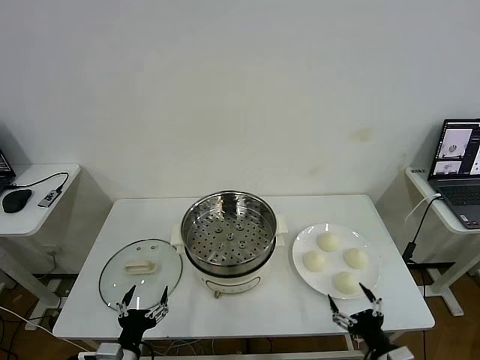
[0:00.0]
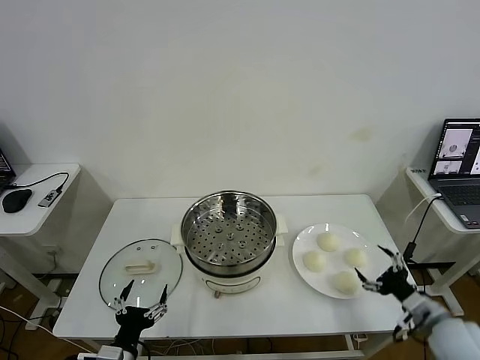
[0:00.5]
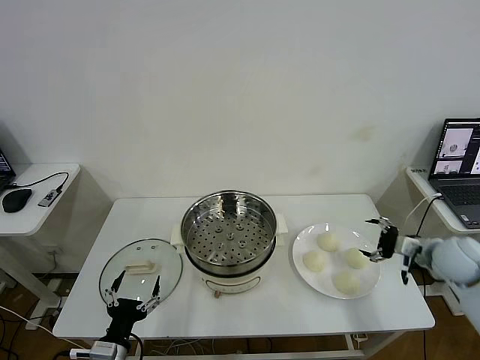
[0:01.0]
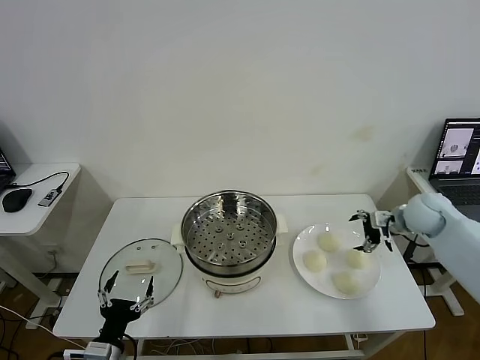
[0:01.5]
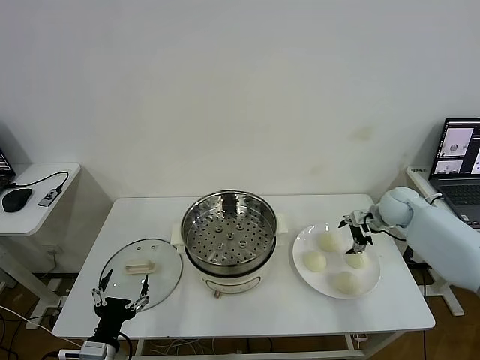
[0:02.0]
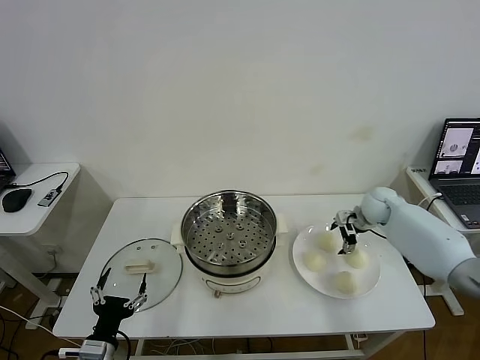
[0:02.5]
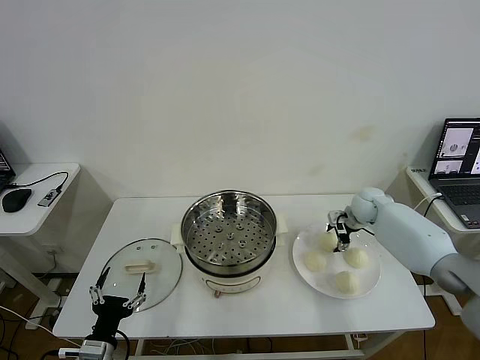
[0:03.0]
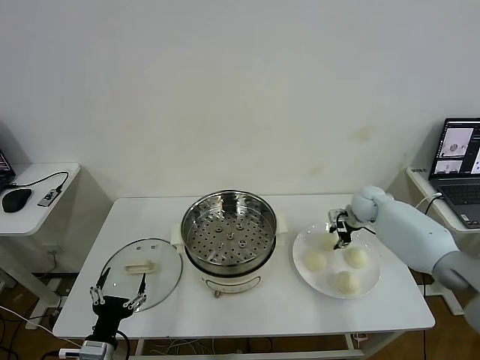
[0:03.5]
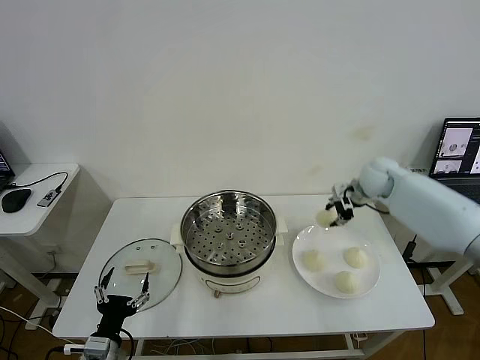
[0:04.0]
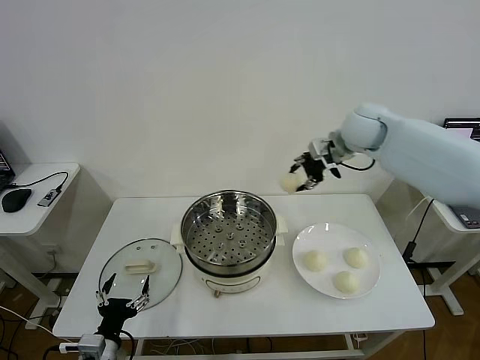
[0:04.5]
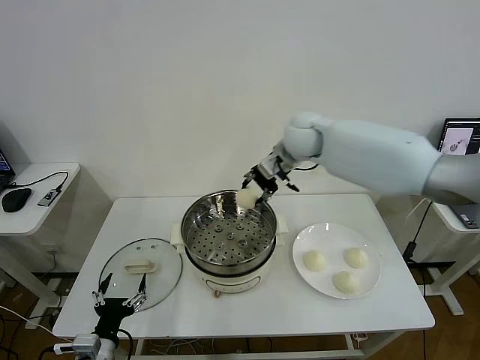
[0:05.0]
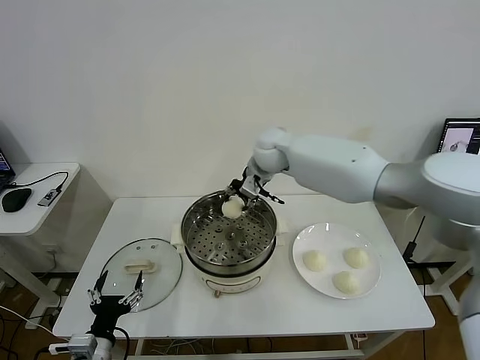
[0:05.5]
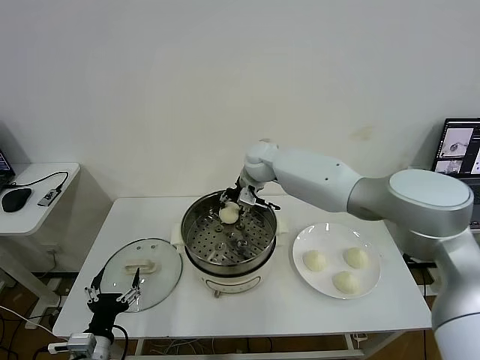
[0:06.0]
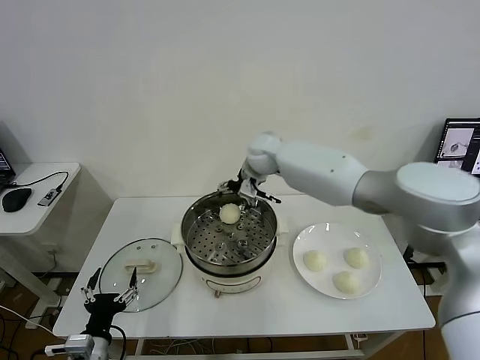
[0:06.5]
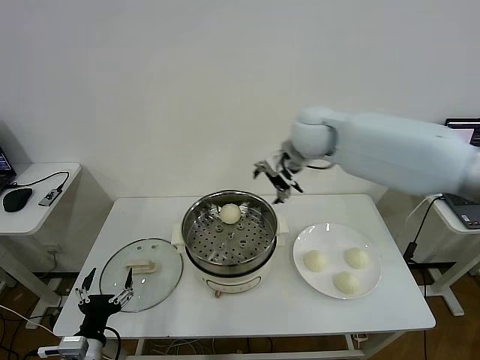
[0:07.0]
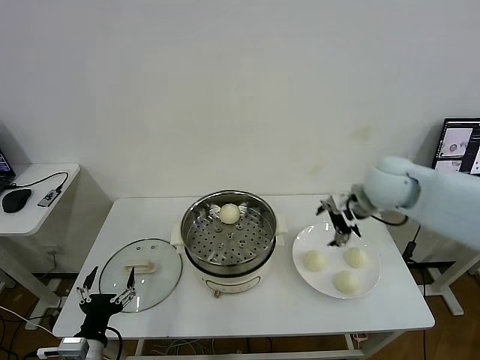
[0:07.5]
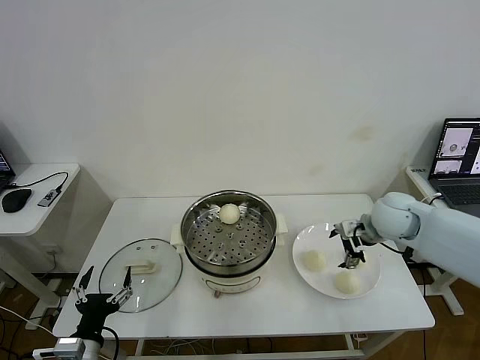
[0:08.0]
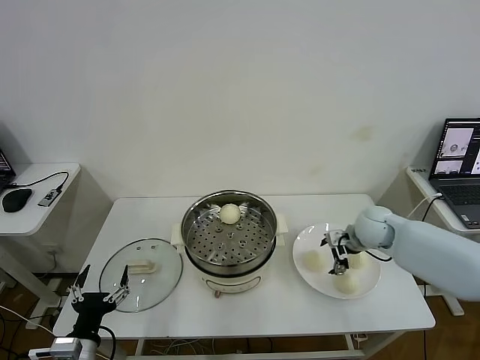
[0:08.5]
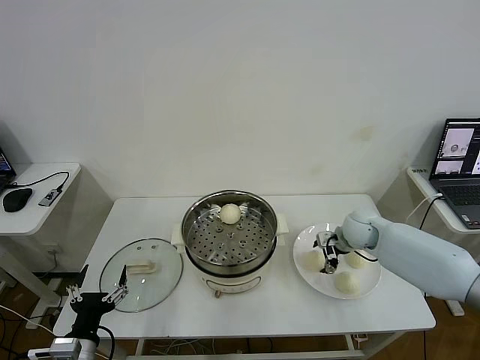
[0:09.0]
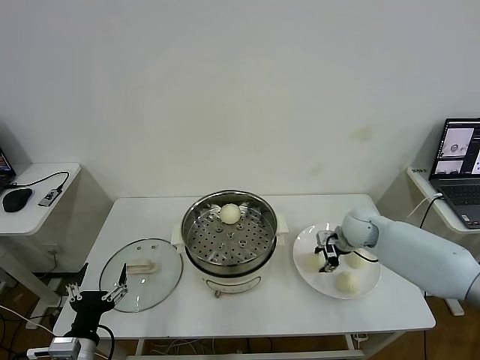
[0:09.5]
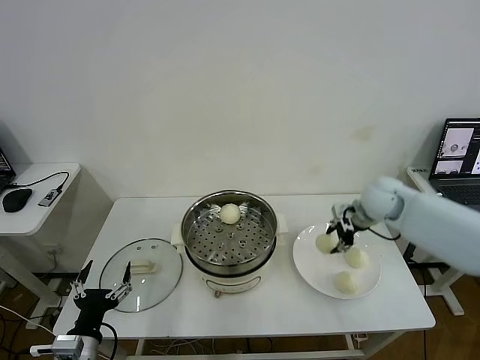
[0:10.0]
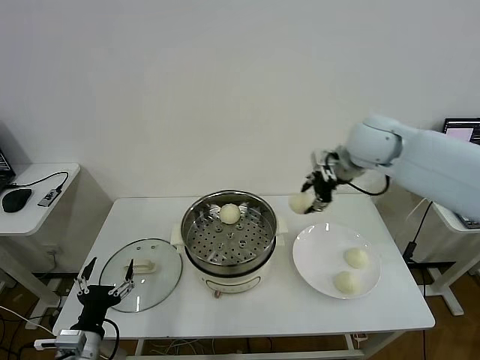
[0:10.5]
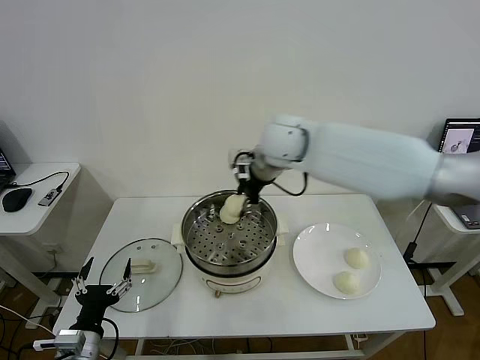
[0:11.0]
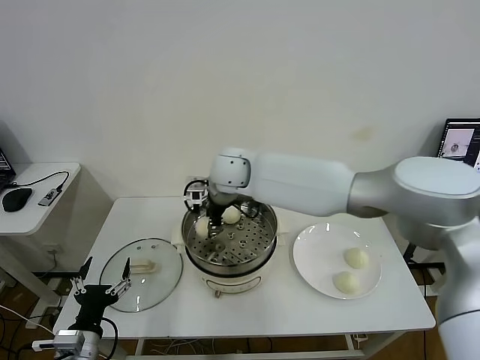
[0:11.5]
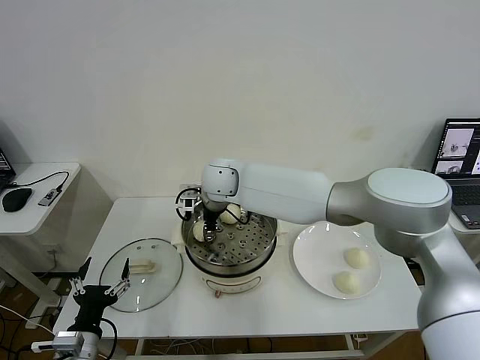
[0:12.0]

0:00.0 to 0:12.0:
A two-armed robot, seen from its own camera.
Task of the whole recording: take steamed baozi put them in steamer then cover it.
Step, 0:00.0 to 0:03.5: Grasp the baozi in the plate with right gripper.
Step, 0:04.0 to 0:06.0: Place the baozi on the steamer with right gripper.
Step, 0:06.5 to 0:09.5: Grasp the baozi in the plate with right gripper.
0:02.0 to 0:04.0: The right gripper shifts about 10 cm upward and to the left, and closes its fingers.
0:04.0 to 0:06.0: The right gripper goes roughly 30 cm to the left.
0:06.0 to 0:08.0: The right gripper goes about 30 cm to the right and backward, and opens its fingers.
0:08.0 to 0:10.0: The right gripper shifts roughly 5 cm forward, travels downward and back again, roughly 10 cm each way, and closes.
0:10.0 to 0:12.0: The right gripper moves to the left, about 35 cm.

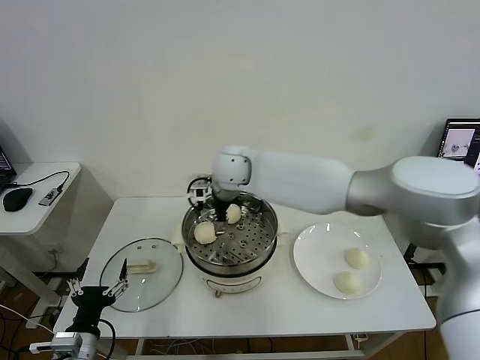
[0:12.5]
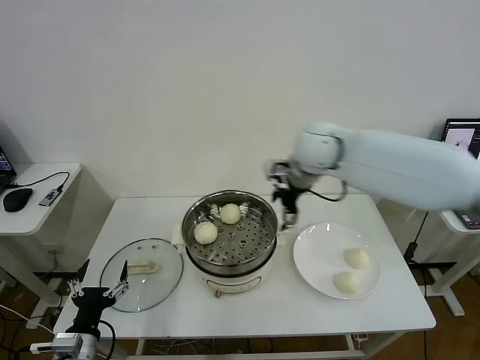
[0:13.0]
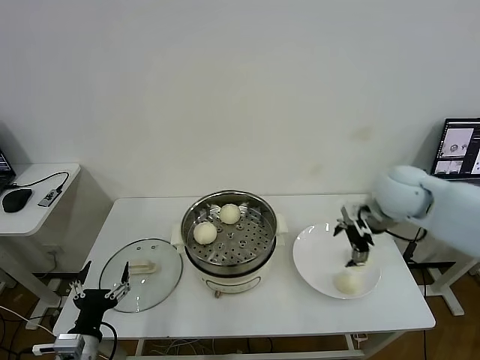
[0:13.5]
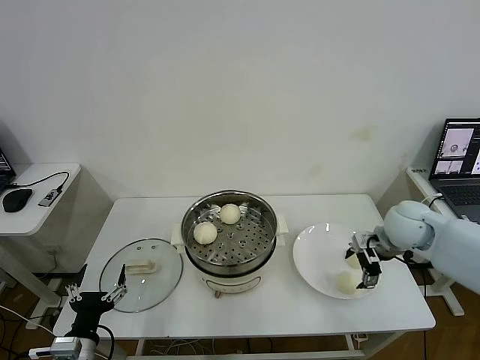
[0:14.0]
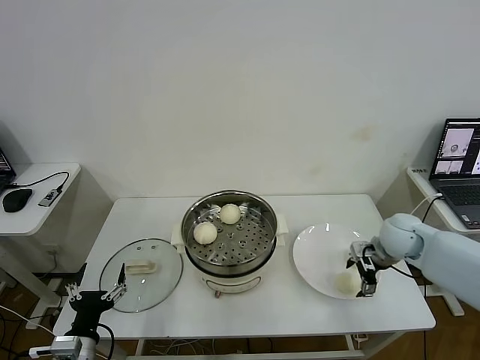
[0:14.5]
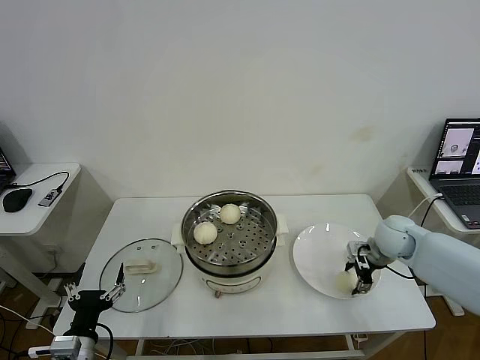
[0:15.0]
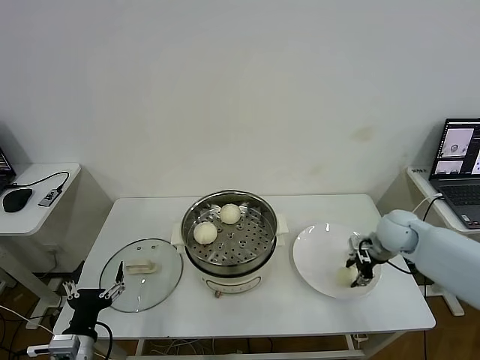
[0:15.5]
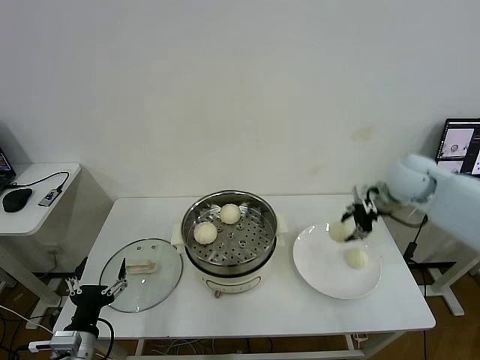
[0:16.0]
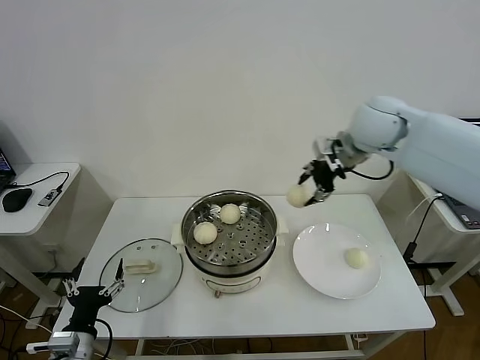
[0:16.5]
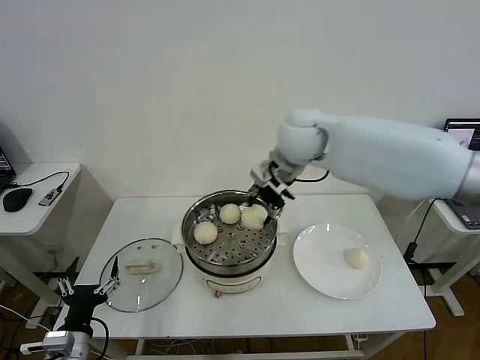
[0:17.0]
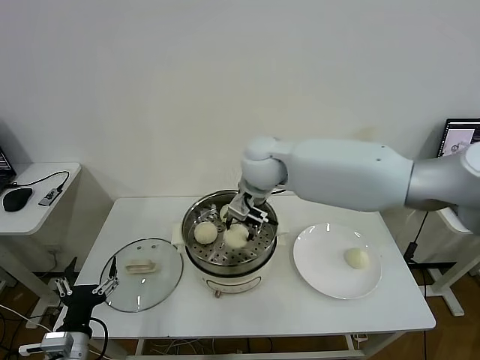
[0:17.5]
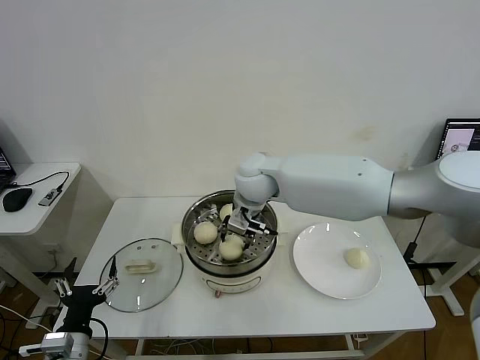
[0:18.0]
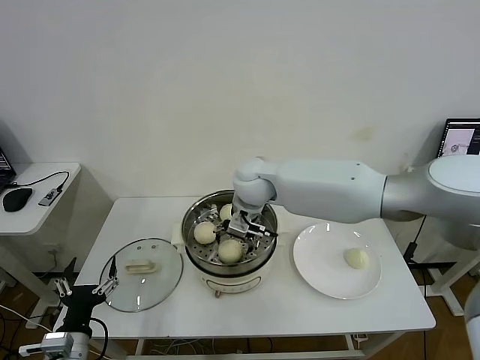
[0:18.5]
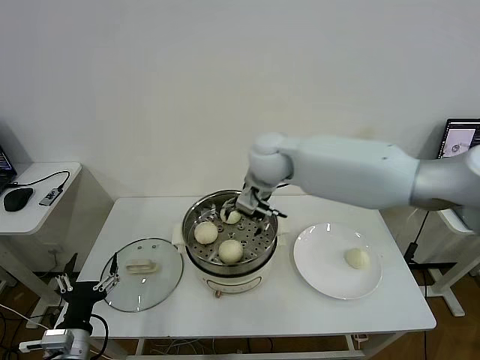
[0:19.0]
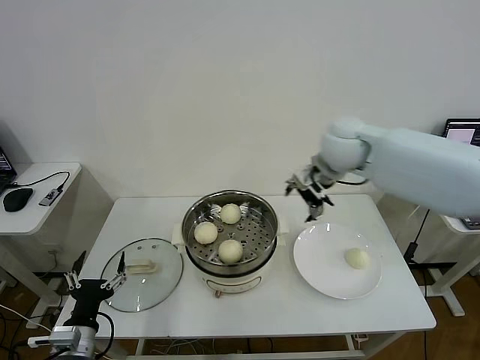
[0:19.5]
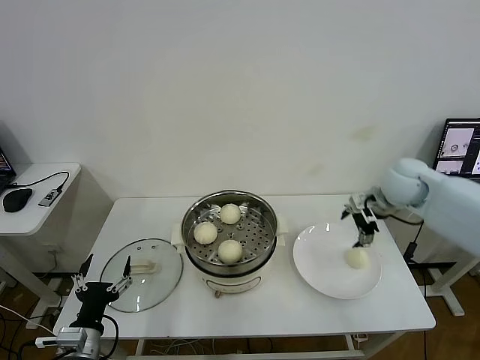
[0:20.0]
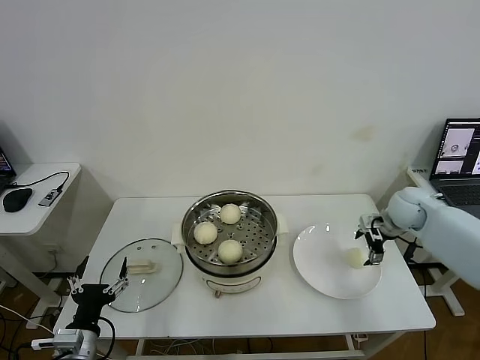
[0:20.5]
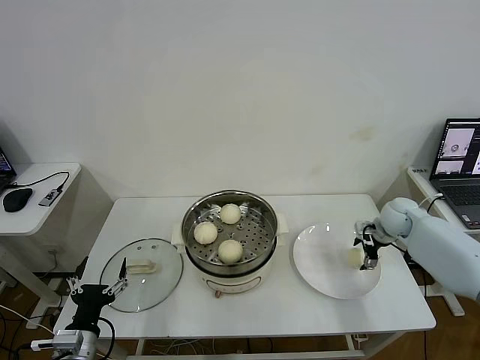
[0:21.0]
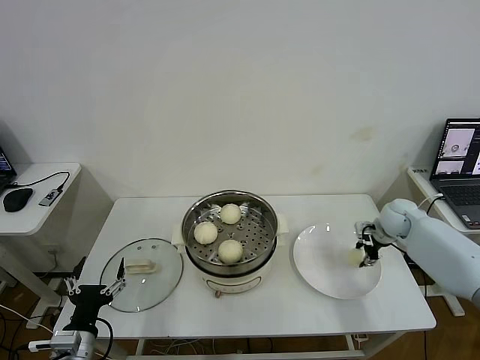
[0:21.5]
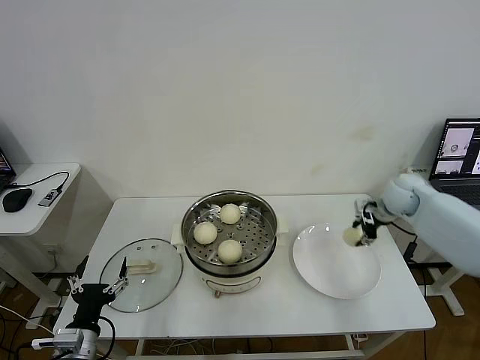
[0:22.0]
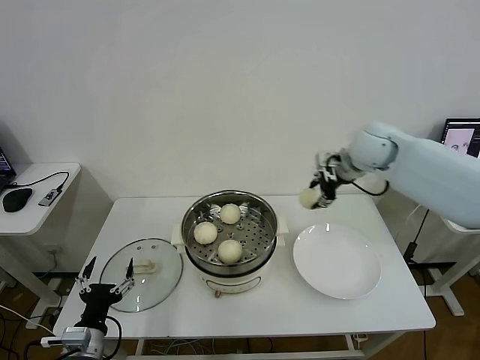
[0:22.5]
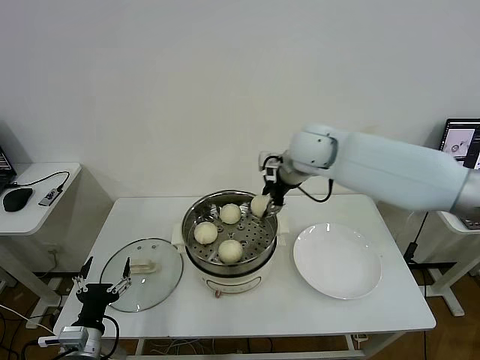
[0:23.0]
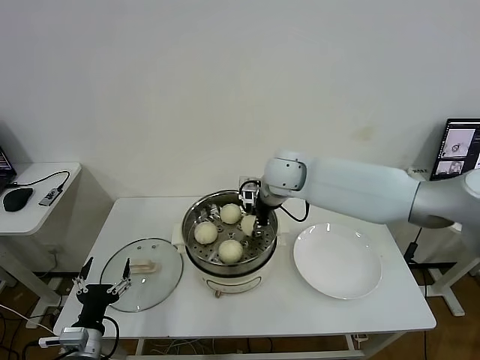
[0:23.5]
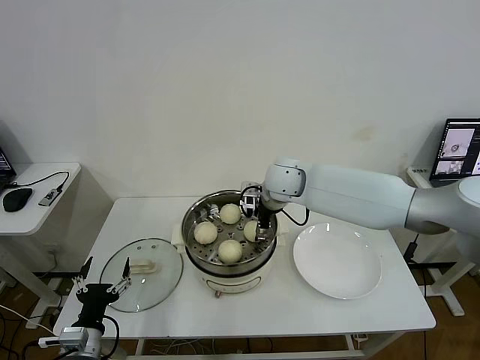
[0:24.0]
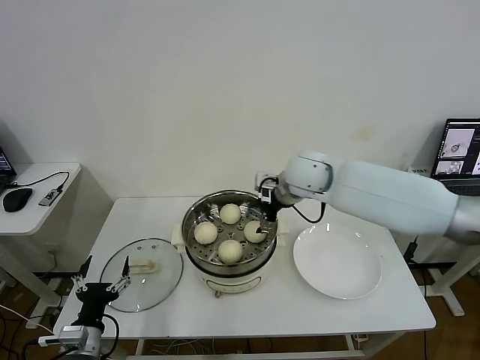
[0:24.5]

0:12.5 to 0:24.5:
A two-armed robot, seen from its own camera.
Task of the whole recording: take steamed baozi put them in steamer then cover it.
Step, 0:12.5 to 0:15.0: Grasp the baozi in the plate with right gripper.
Step, 0:15.5 to 0:18.5: Place the baozi on the steamer with right gripper.
Step, 0:19.0 to 0:21.5: Grasp the baozi in the plate with right gripper.
Step, 0:22.0 to 0:24.0: Place the baozi on the steamer with right gripper.
0:12.5 to 0:14.5: The right gripper is displaced to the right by about 40 cm.
0:14.5 to 0:16.5: The right gripper travels upward and to the left by approximately 25 cm, and closes its fingers.
0:16.5 to 0:18.5: The right gripper moves to the left and downward, about 25 cm, and opens up.
0:18.5 to 0:20.5: The right gripper travels to the right by roughly 40 cm.
0:20.5 to 0:22.5: The right gripper is displaced upward and to the left by roughly 20 cm, and closes up.
0:22.5 to 0:24.5: The right gripper moves to the left, some 15 cm, and opens.

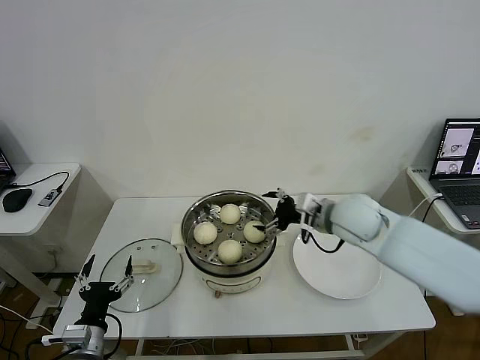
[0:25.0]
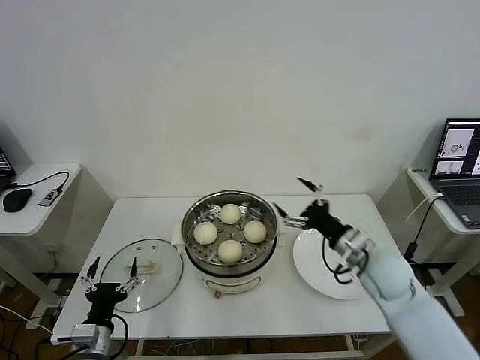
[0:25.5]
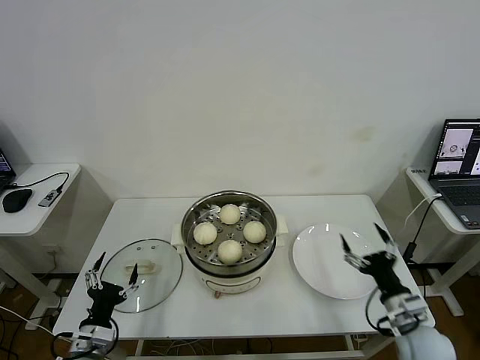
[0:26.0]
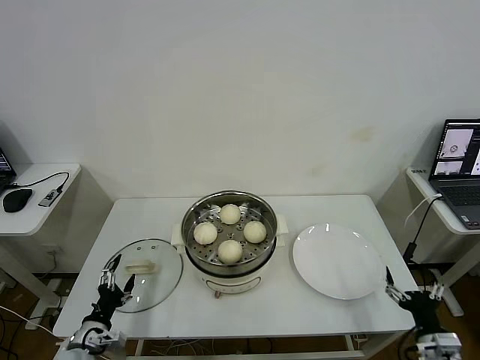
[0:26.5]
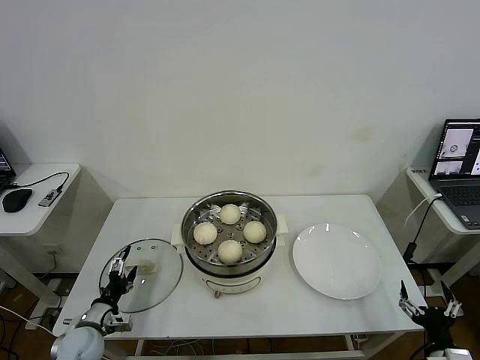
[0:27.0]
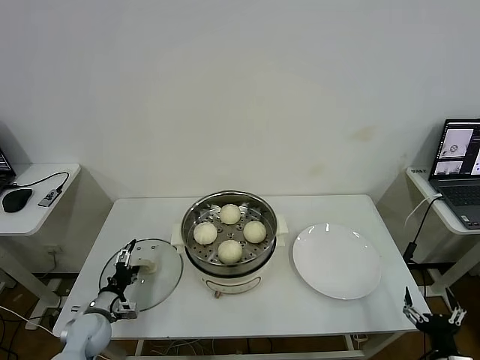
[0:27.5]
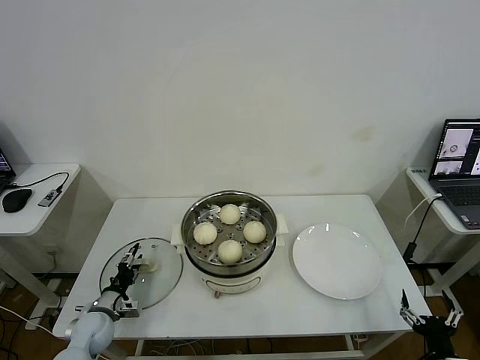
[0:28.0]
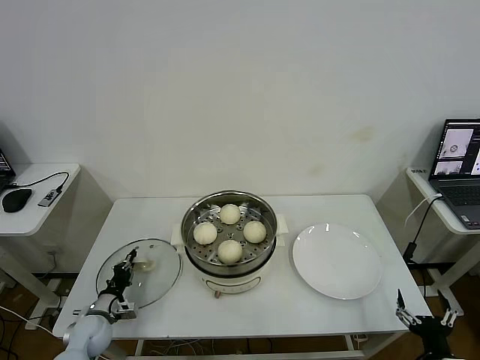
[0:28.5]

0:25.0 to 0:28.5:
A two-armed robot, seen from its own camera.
Task of the whole recording: take steamed baozi put them in steamer then cover it.
0:25.0 to 0:27.0: The left gripper moves forward, downward and to the left, approximately 10 cm. Meanwhile the right gripper moves backward, downward and to the right, roughly 40 cm.
0:27.0 to 0:28.5: The left gripper ends up roughly 5 cm from where it was, and closes up.
